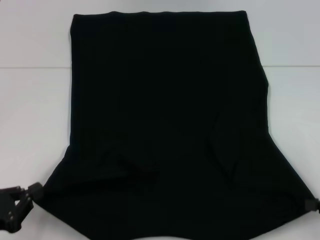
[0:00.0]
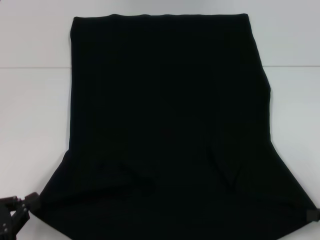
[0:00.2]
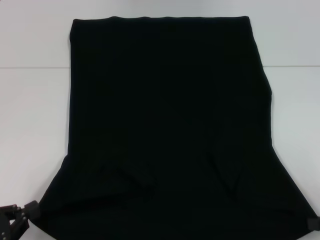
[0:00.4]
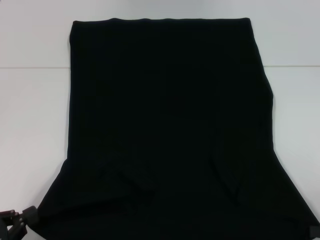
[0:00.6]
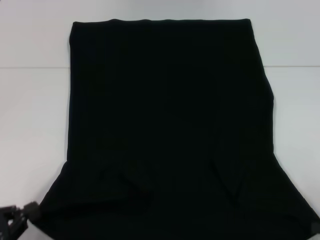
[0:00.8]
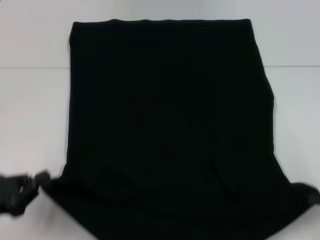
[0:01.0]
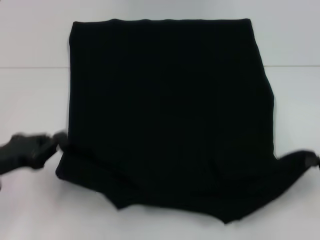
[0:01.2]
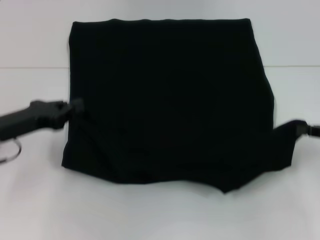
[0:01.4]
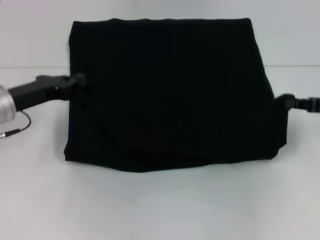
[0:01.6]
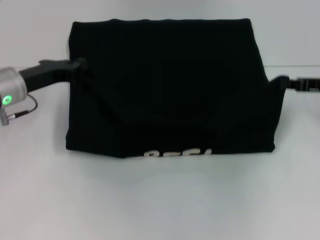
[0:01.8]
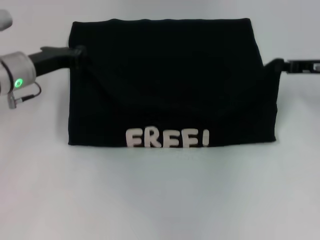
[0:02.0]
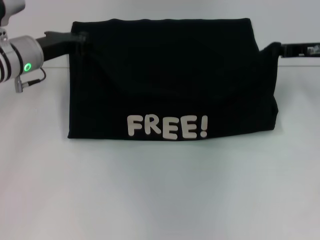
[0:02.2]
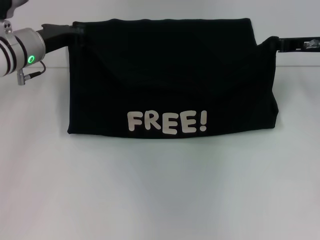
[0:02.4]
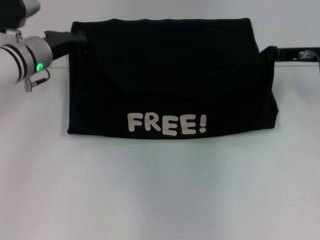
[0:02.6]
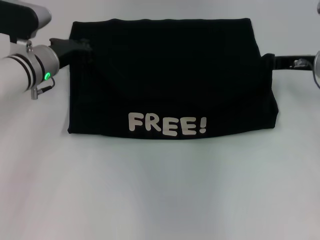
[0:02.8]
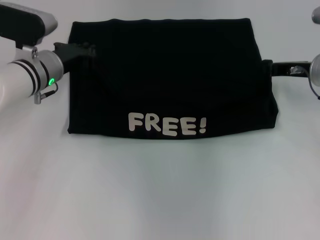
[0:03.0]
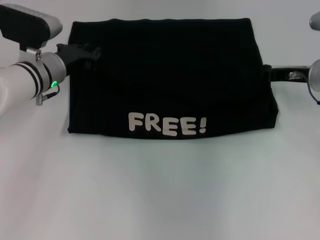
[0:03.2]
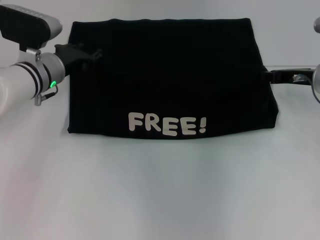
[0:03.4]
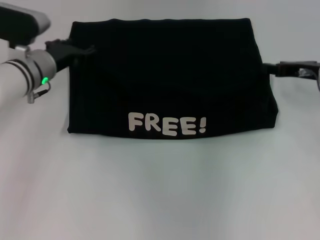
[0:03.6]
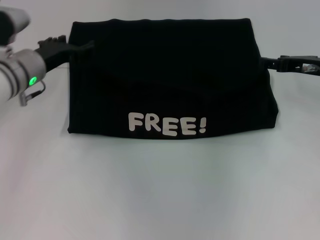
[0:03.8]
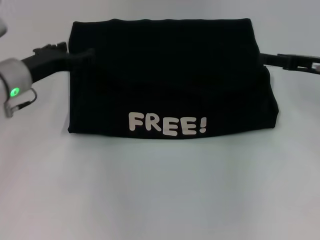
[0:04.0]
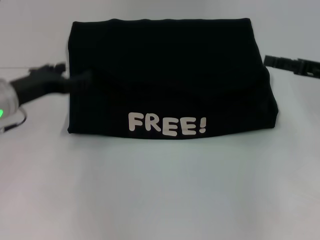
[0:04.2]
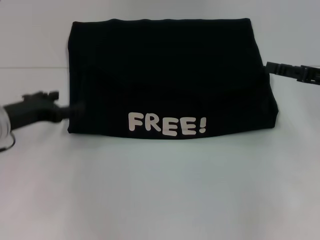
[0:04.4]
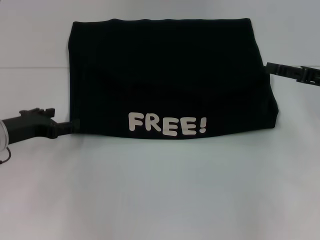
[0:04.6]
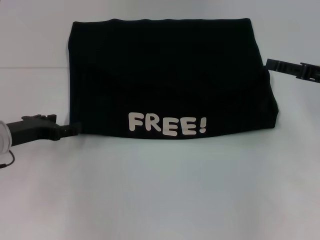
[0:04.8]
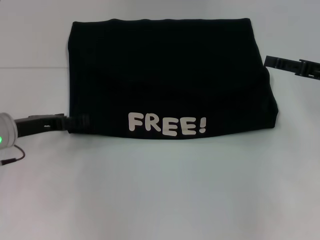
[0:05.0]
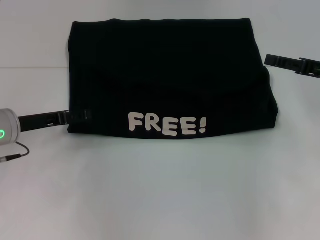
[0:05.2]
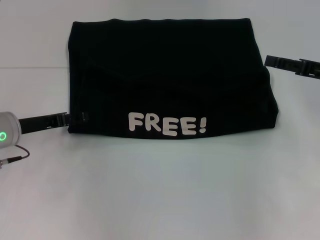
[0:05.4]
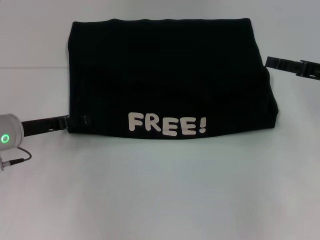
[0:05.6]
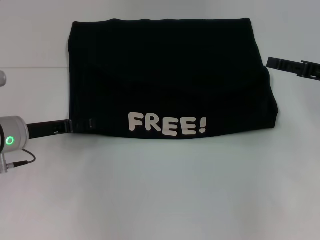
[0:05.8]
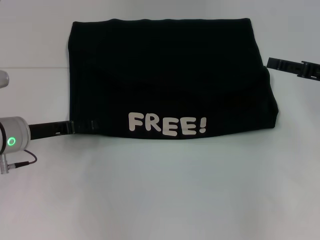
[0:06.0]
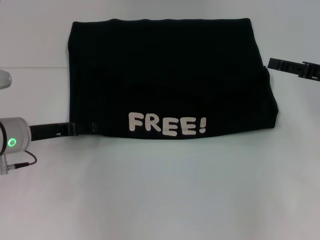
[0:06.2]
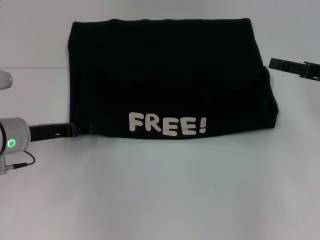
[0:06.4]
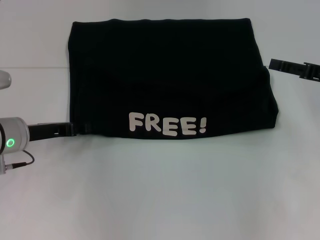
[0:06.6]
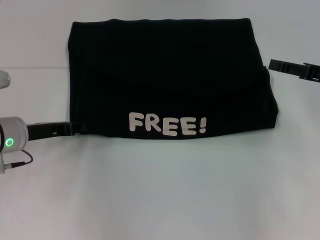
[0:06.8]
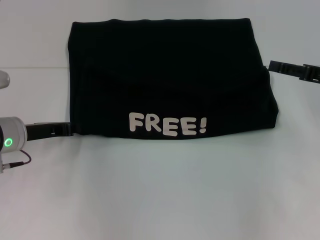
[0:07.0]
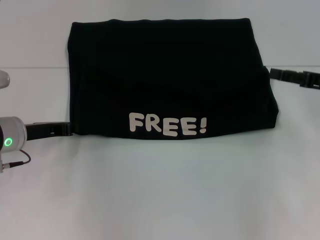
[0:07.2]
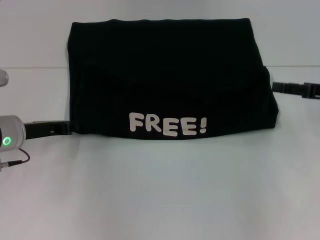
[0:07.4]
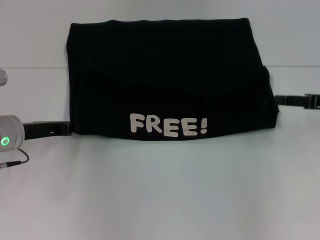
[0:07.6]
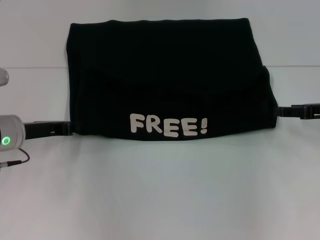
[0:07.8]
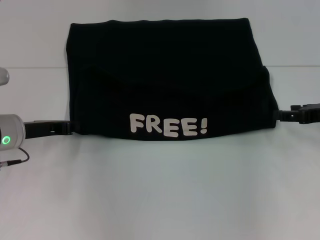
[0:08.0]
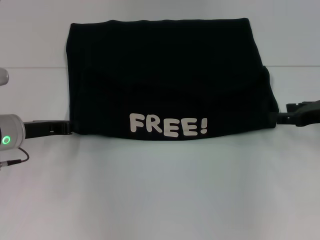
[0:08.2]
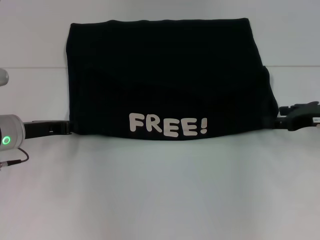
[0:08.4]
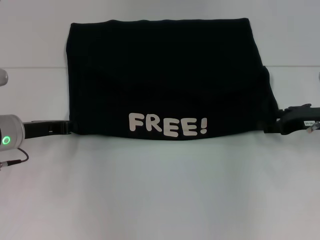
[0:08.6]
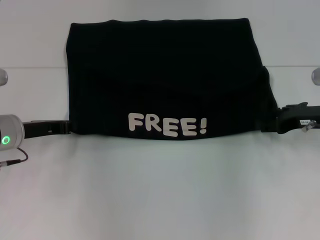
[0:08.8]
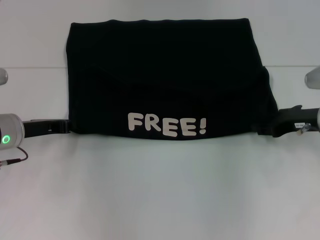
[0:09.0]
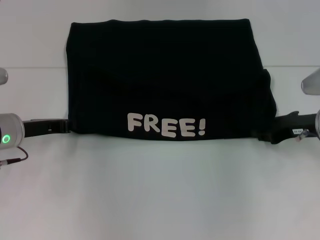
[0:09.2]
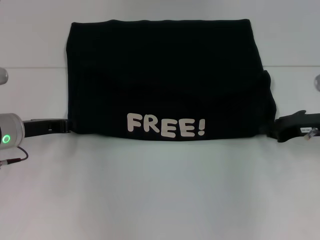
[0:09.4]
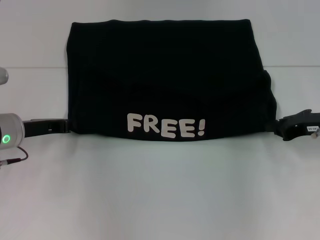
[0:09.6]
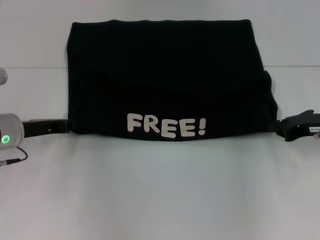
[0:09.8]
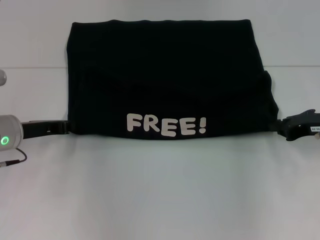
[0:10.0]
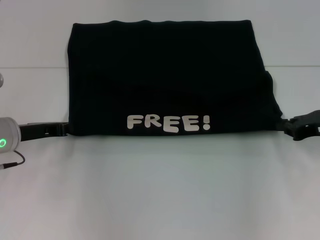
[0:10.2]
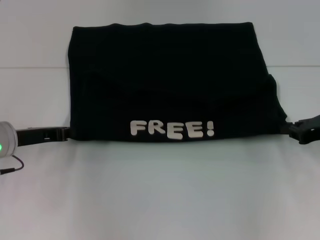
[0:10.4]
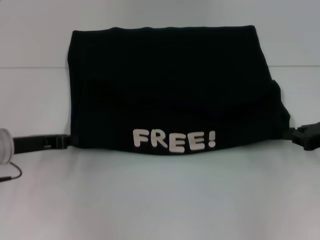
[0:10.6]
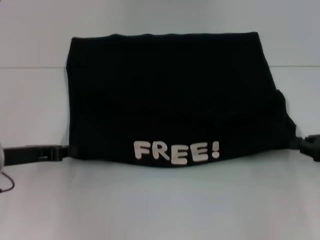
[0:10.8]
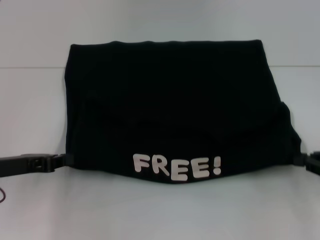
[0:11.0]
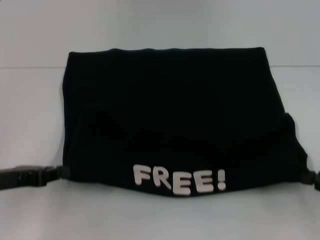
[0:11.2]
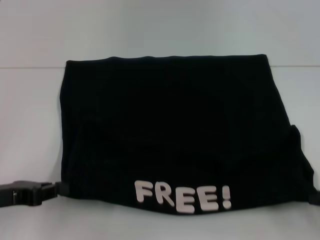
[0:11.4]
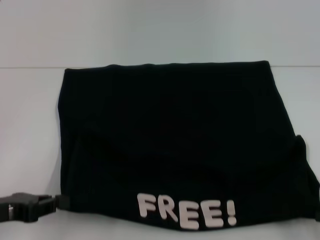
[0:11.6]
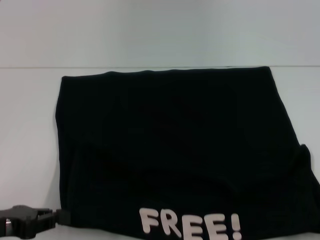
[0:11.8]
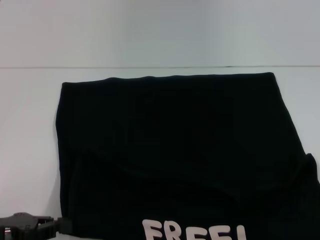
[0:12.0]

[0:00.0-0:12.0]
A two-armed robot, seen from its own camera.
Step, 0:00.0 to 0:03.8: Fold the clothes with your left hand.
Step, 0:00.0 to 0:03.8: Fold the clothes with your right hand.
Step, 0:04.0 to 0:11.8: Pull the clothes with your left hand.
Step, 0:04.0 to 0:11.8: Pull the clothes with your right hand.
0:00.0 to 0:01.6: The right gripper travels forward and upward by roughly 15 cm. Meanwhile the left gripper moves forward, some 20 cm.
0:01.6 to 0:03.0: The left gripper goes some 10 cm forward and to the right; the right gripper heads forward and to the left, covering approximately 10 cm.
0:03.0 to 0:04.4: The left gripper heads backward and to the left, covering some 10 cm, and opens its fingers. The right gripper heads backward and to the right, covering some 10 cm, and opens its fingers.
0:06.0 to 0:07.6: The left gripper closes its fingers.
0:07.6 to 0:09.0: The right gripper moves to the left, about 5 cm.
0:09.0 to 0:10.4: The right gripper moves approximately 5 cm, and closes.
0:10.4 to 0:12.0: Both grippers travel together backward, about 15 cm.

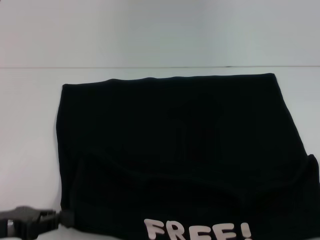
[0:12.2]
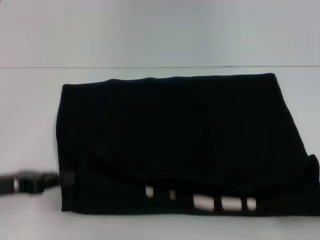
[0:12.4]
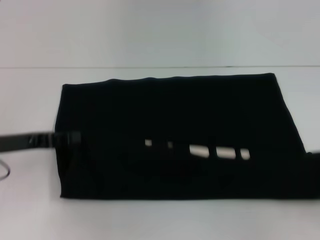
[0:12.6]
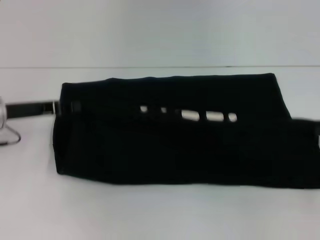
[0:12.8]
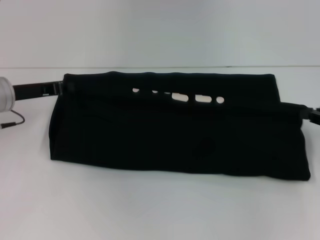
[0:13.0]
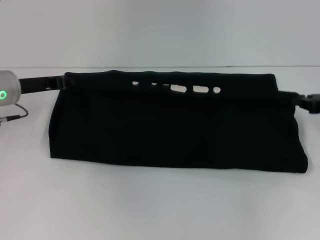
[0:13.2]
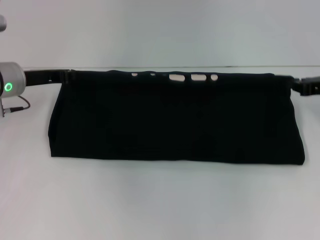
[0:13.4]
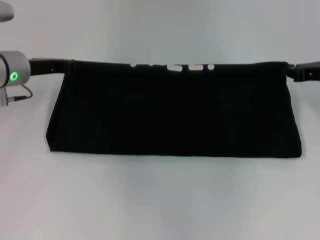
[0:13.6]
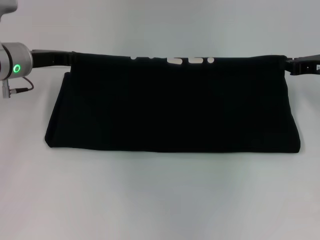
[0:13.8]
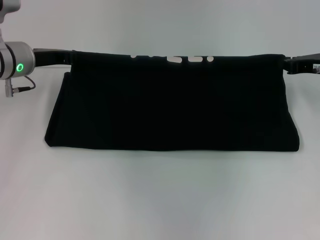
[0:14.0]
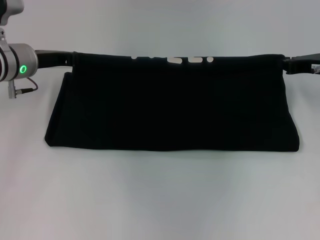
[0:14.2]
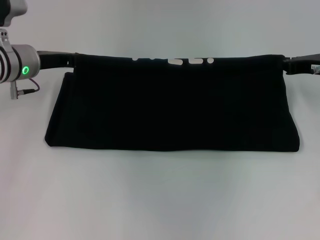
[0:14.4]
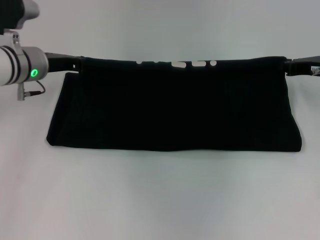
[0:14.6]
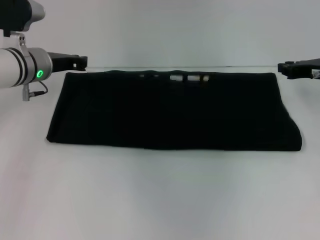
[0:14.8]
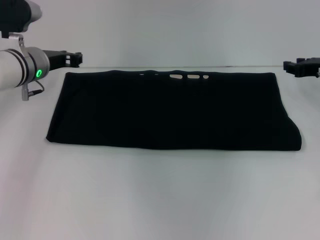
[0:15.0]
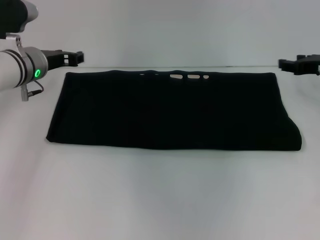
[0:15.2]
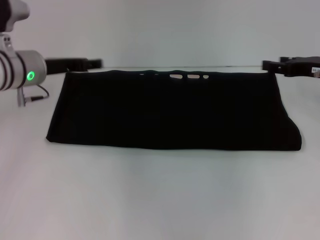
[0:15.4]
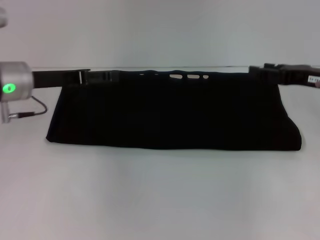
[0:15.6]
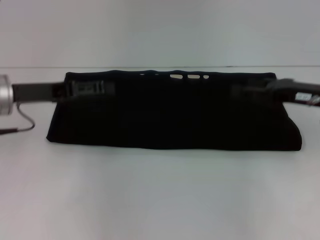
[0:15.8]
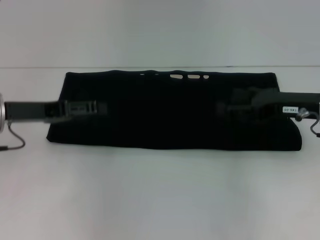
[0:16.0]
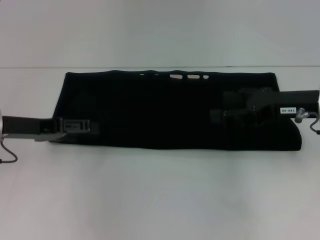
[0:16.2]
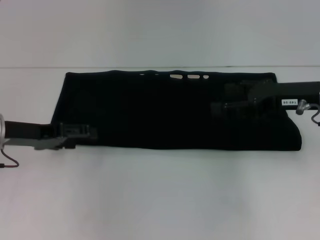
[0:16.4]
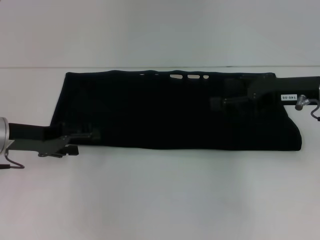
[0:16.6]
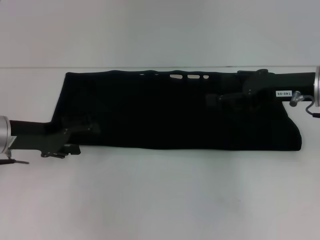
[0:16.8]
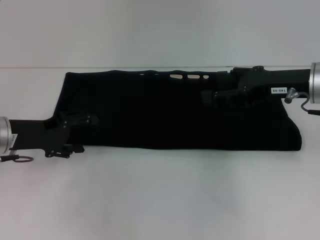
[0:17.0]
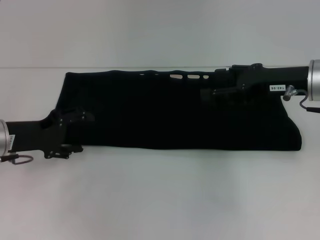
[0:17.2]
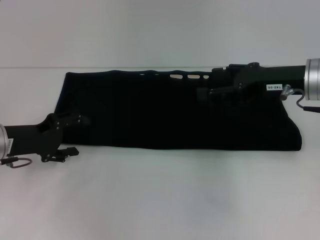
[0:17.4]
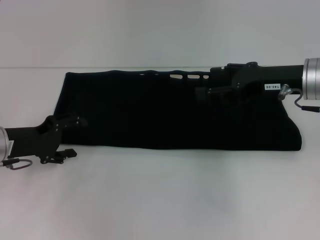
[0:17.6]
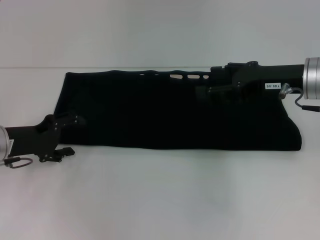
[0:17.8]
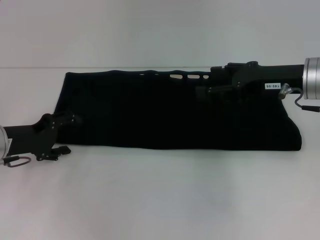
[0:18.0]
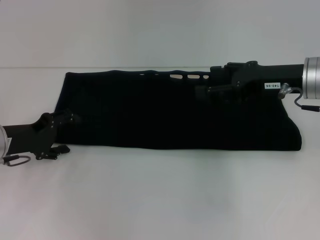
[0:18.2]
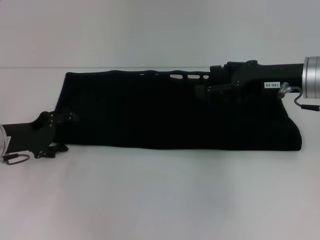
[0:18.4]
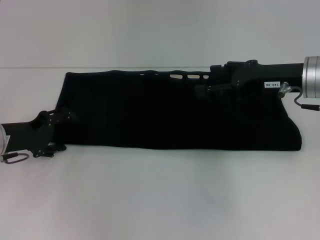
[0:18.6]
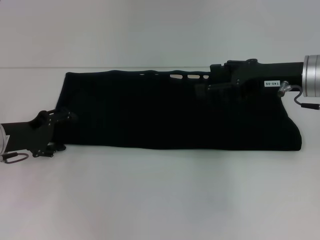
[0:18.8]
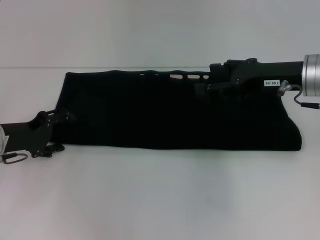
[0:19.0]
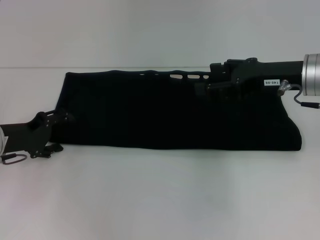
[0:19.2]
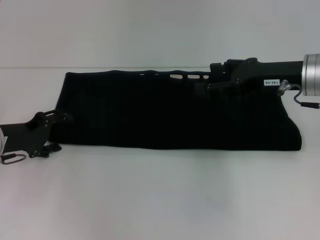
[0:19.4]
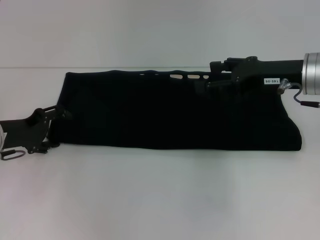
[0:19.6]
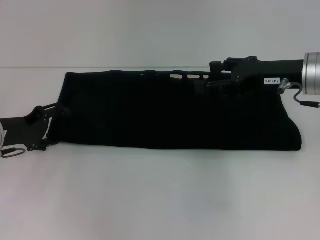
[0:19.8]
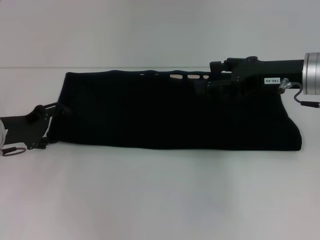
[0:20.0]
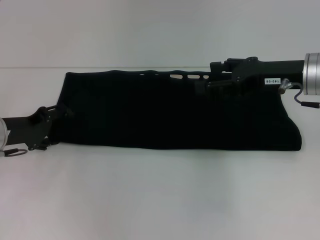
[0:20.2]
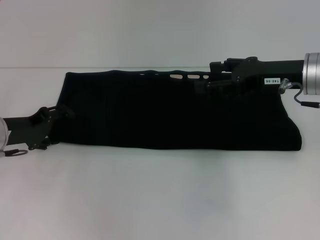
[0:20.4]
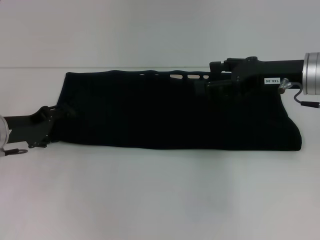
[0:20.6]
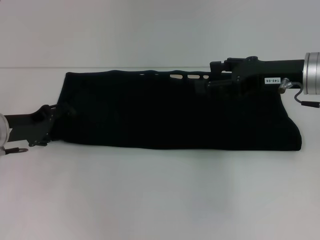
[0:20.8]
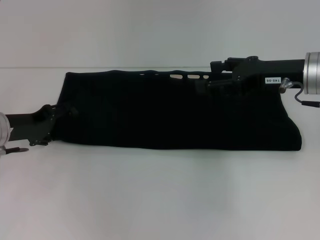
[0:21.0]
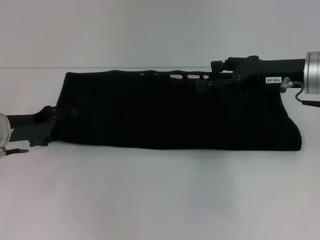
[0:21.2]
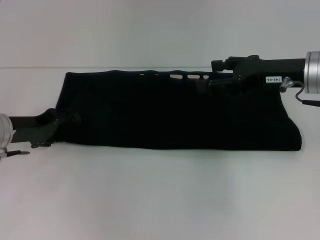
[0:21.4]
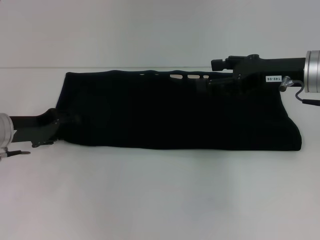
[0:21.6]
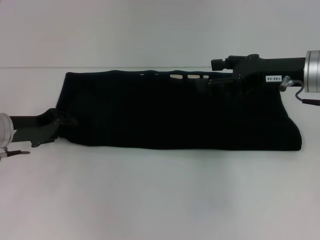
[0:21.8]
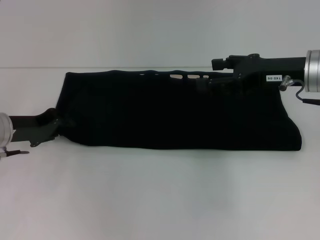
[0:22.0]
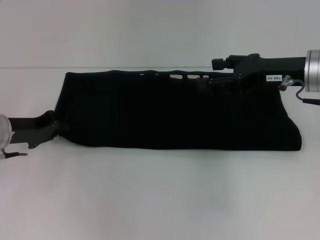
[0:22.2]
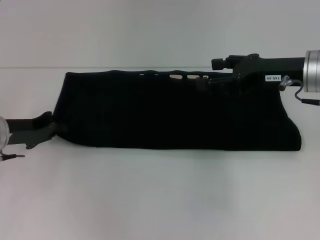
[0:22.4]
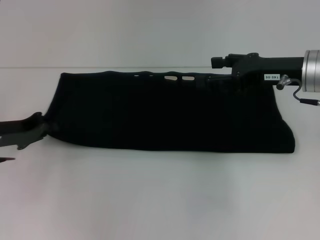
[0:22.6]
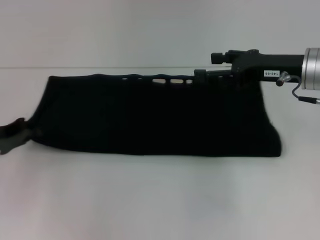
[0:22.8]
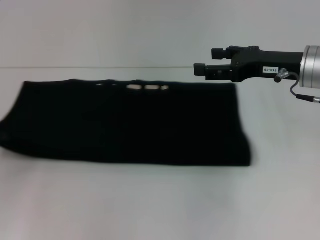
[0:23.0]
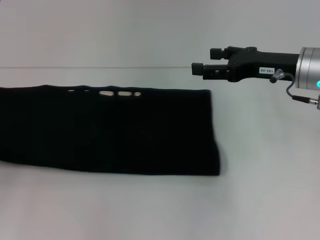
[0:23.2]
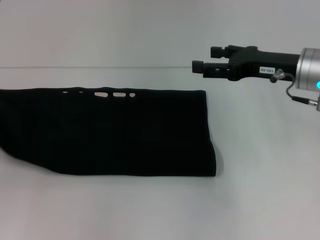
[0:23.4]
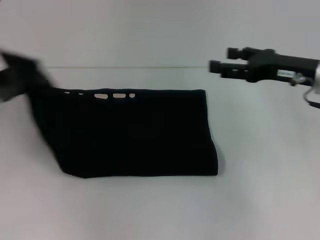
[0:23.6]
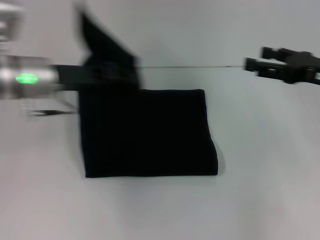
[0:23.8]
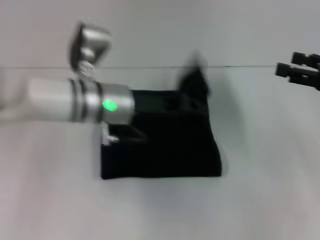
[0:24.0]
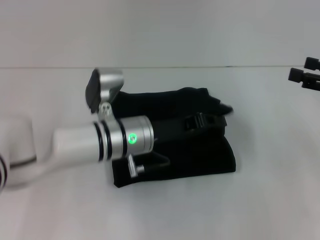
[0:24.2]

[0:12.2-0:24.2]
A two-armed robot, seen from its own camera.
Step, 0:12.2 to 0:15.6: Fold the clothes with your right hand.
0:12.2 to 0:13.8: Both grippers move forward, about 25 cm.
0:13.8 to 0:15.2: The right gripper opens.
0:15.2 to 0:16.6: The two grippers go about 10 cm backward and to the left. The left gripper opens its fingers. The right gripper opens its fingers.
0:18.2 to 0:21.2: The grippers stay close to where they were, moving slightly.
0:21.2 to 0:22.6: The left gripper closes.
0:22.6 to 0:24.2: The right gripper moves to the right and backward, some 15 cm, while the left gripper shifts about 25 cm to the right.
